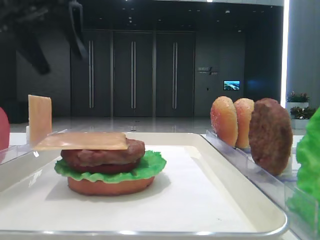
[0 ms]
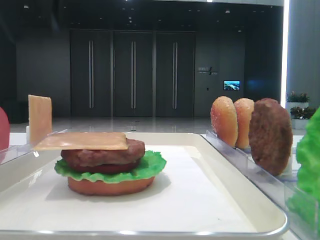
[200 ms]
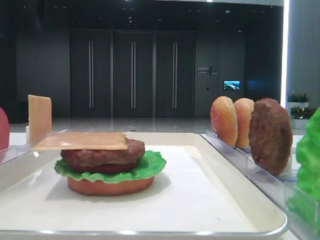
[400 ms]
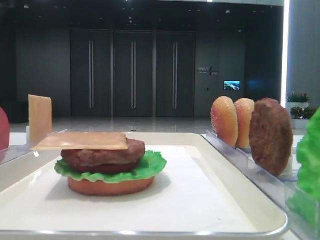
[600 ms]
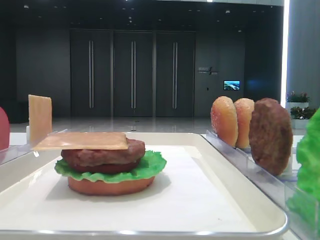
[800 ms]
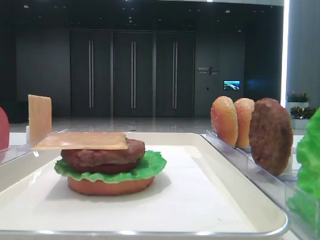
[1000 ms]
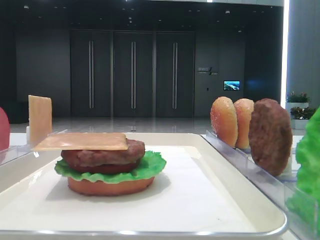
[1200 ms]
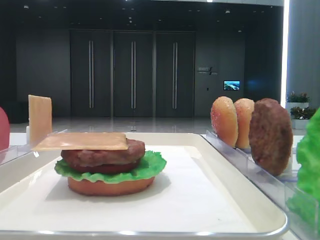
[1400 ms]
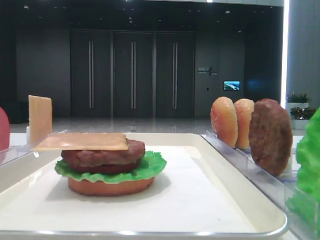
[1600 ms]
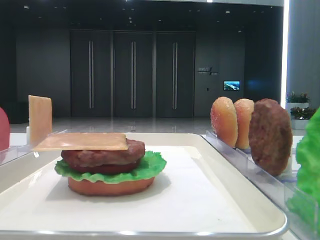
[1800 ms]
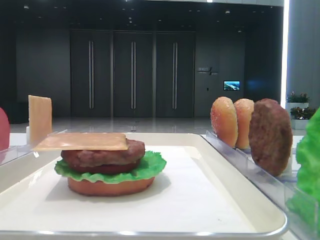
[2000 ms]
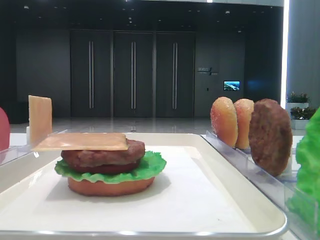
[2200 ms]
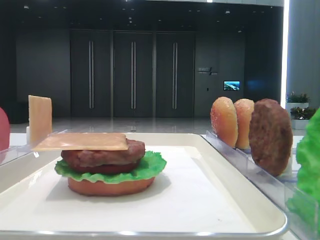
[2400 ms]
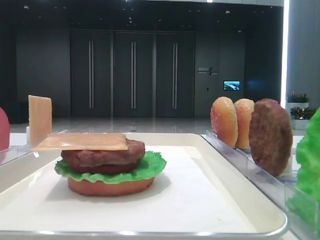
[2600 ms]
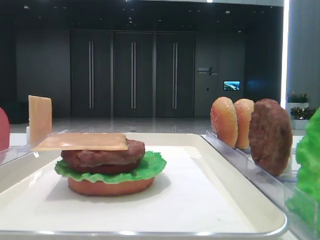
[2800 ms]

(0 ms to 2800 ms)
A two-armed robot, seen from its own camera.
0 ms - 1400 ms: The left gripper goes approximately 25 cm backward and to the left.

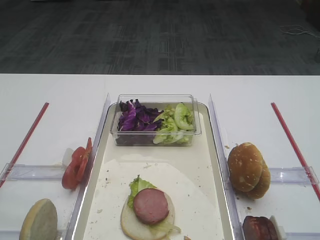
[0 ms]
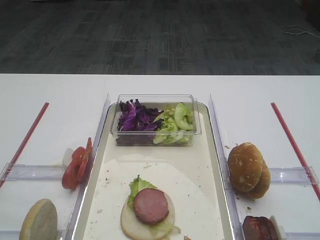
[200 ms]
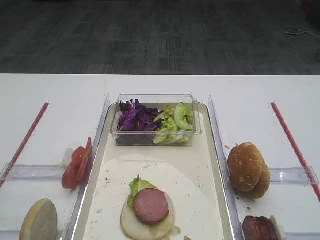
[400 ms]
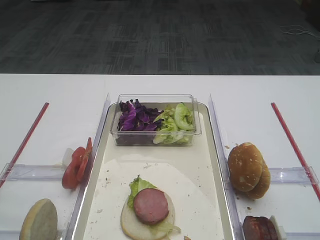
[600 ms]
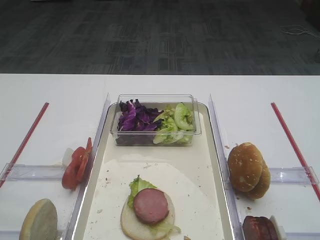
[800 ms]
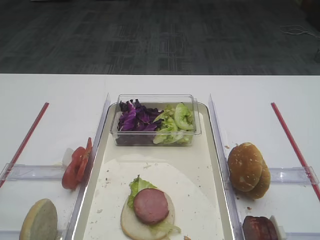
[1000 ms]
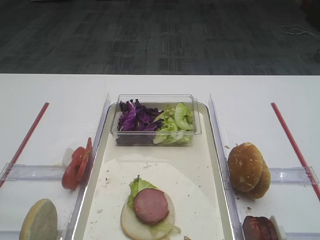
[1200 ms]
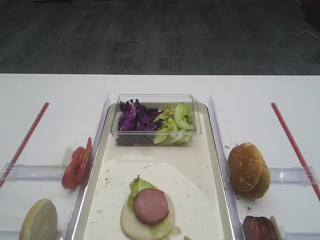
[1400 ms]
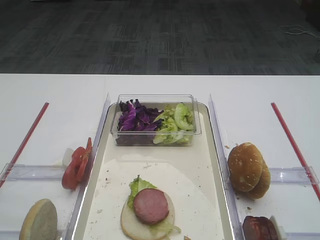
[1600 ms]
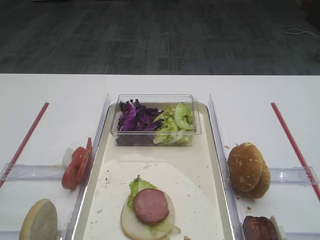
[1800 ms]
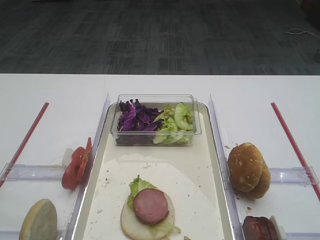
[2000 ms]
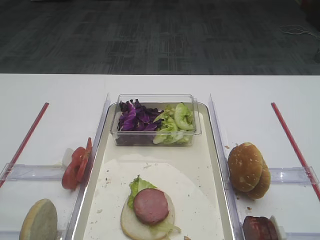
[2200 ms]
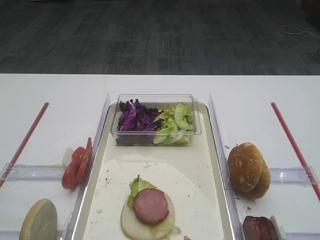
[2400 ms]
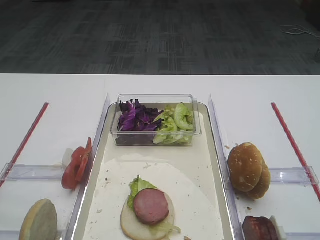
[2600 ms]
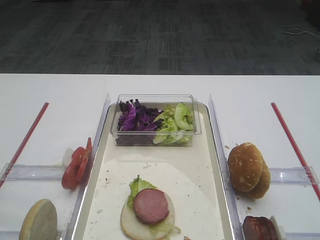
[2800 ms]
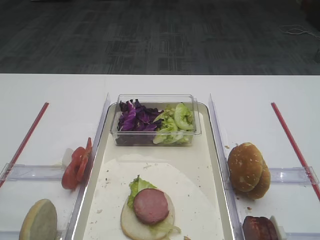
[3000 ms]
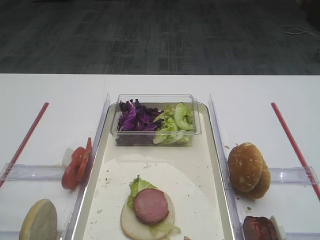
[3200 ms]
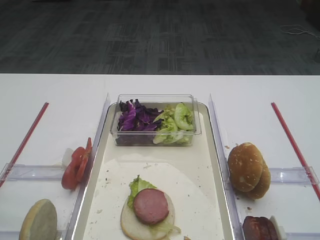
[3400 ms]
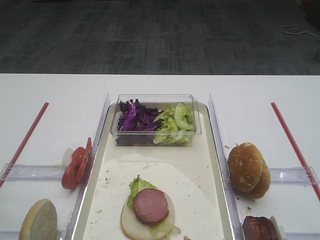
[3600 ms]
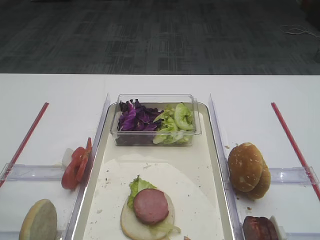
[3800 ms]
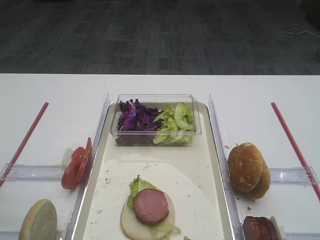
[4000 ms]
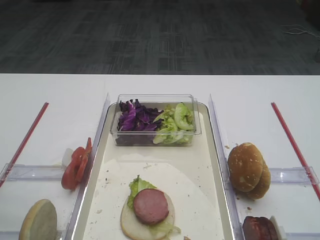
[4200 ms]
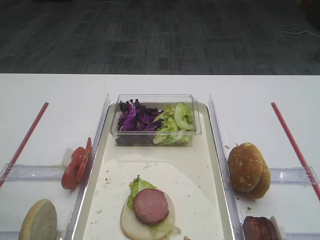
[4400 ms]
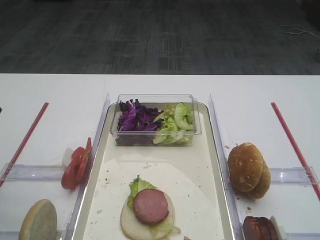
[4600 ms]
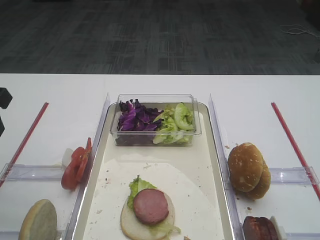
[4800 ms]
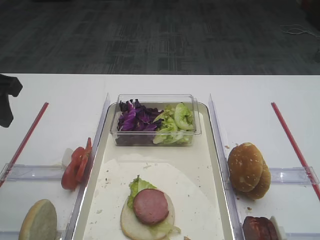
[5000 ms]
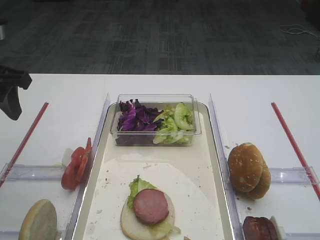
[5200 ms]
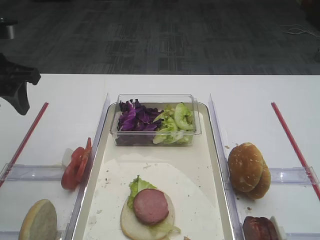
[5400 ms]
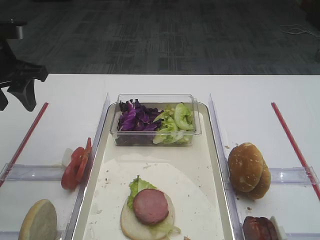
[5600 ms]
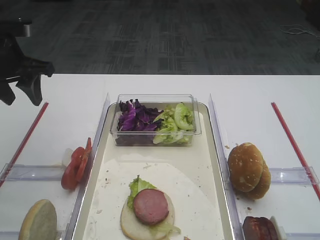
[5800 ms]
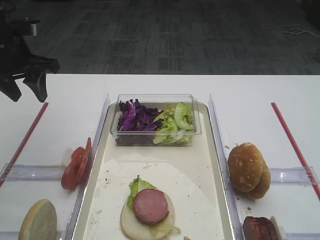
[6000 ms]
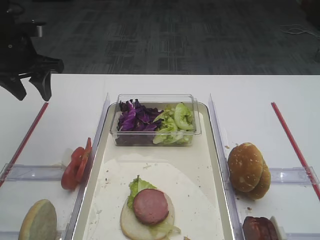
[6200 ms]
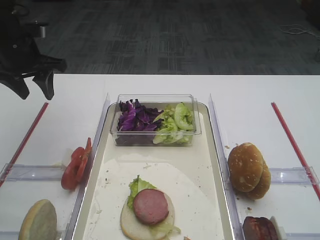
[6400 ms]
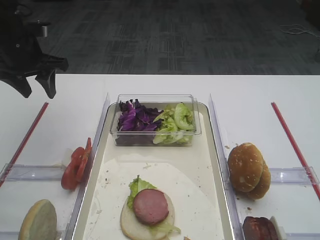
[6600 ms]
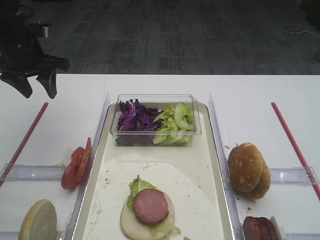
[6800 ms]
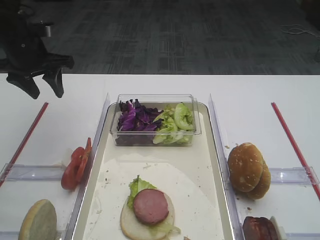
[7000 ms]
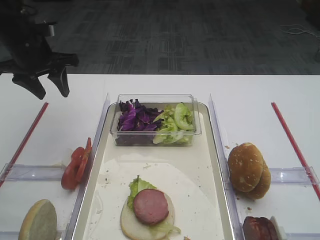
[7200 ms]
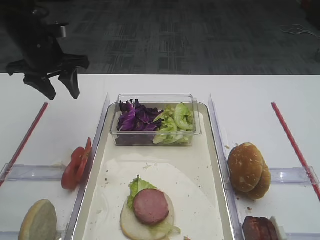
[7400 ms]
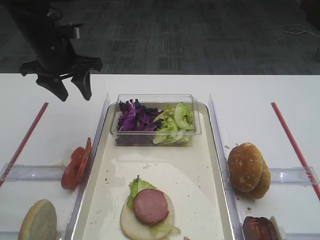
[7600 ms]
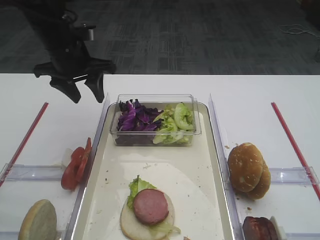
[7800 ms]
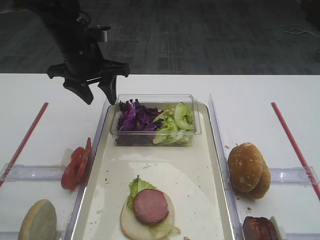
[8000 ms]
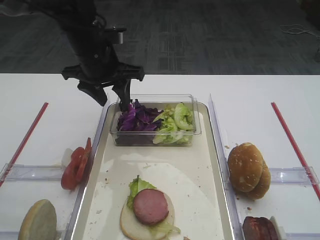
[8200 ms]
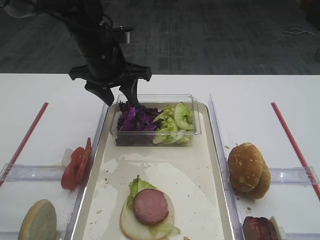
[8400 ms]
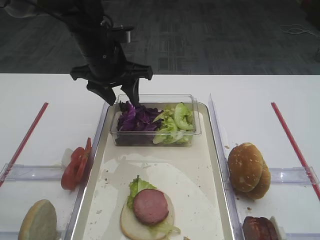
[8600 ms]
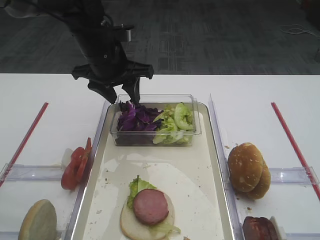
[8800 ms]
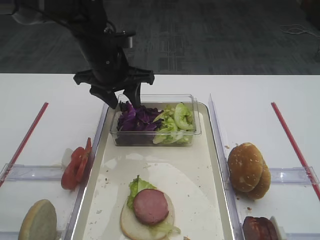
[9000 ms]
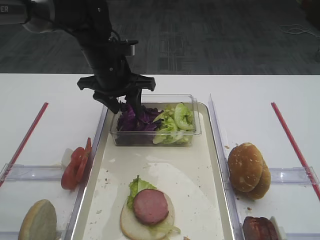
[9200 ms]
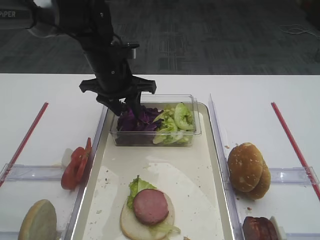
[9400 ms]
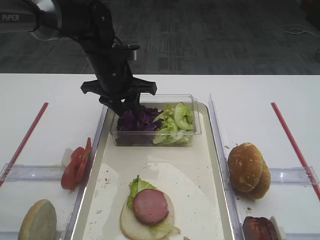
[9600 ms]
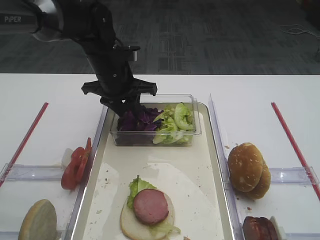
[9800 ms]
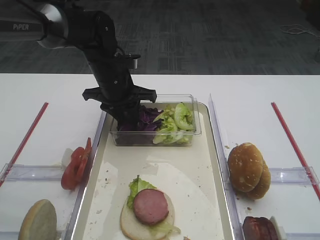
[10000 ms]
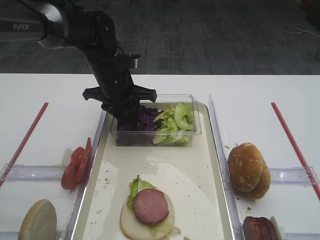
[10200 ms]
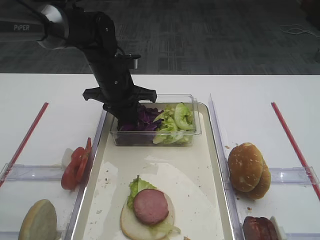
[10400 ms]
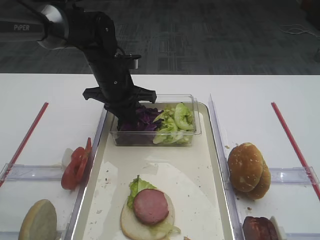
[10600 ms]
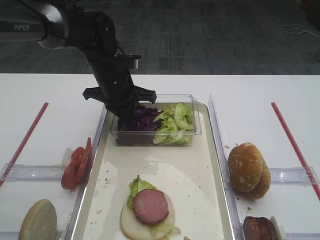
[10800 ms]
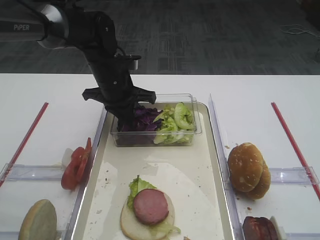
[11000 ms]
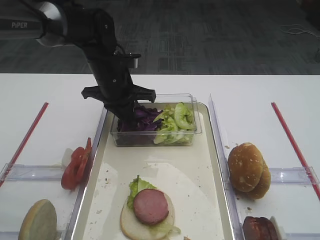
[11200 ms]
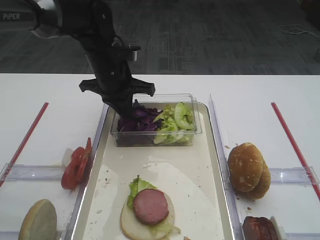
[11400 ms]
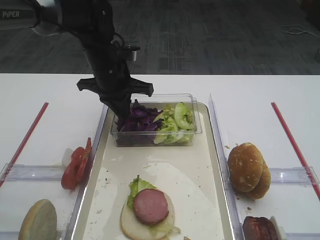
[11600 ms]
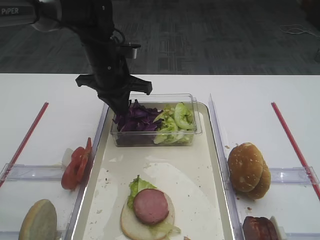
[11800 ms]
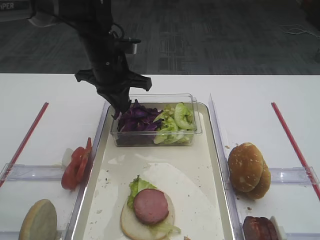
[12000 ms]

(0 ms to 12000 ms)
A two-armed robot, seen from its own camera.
4400 ms - 6000 ms: The left gripper travels forward by approximately 20 cm.
6000 ms - 7600 ms: The left gripper shifts roughly 5 cm to the right.
7600 ms - 9000 ms: The left gripper goes approximately 10 cm to the right.
9000 ms - 10400 ms: The left gripper shifts by about 5 cm, and closes its fingers.
10400 ms - 12000 ms: The left gripper closes up.

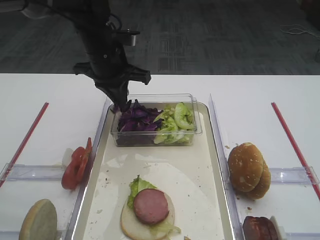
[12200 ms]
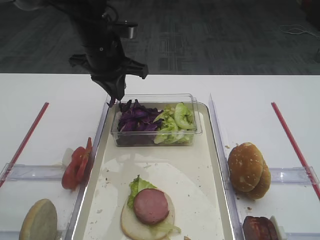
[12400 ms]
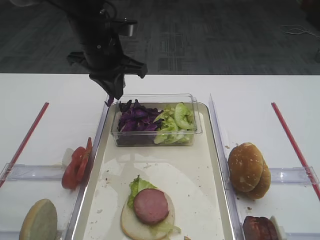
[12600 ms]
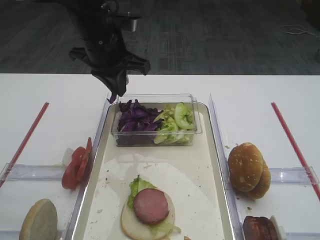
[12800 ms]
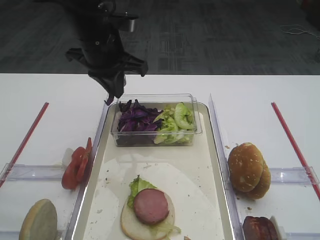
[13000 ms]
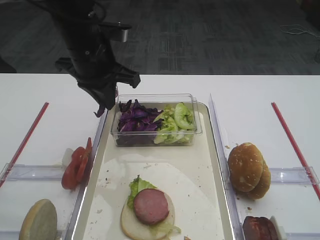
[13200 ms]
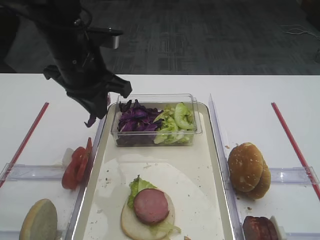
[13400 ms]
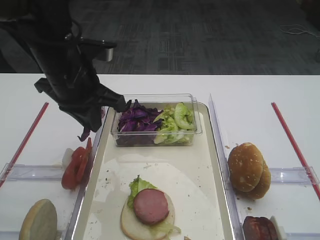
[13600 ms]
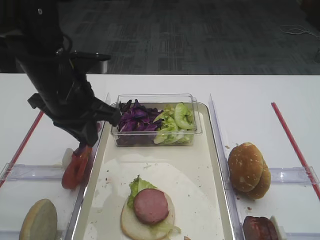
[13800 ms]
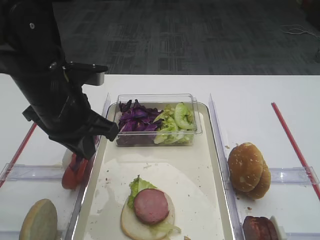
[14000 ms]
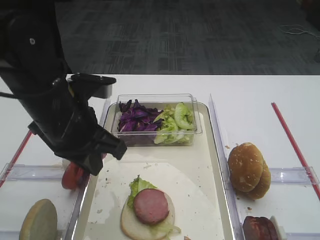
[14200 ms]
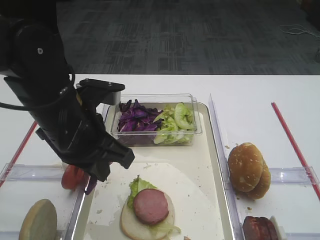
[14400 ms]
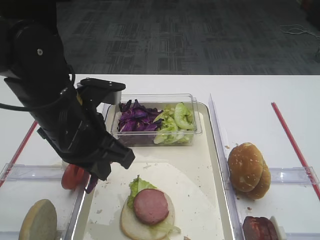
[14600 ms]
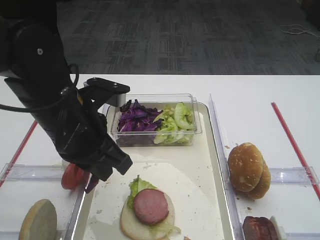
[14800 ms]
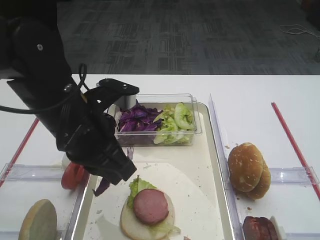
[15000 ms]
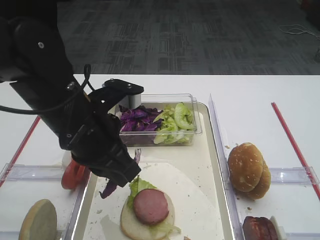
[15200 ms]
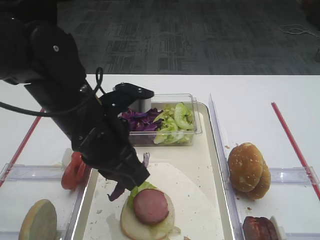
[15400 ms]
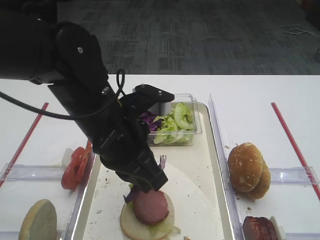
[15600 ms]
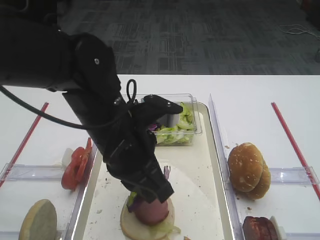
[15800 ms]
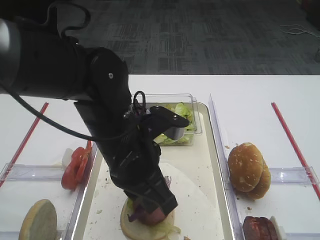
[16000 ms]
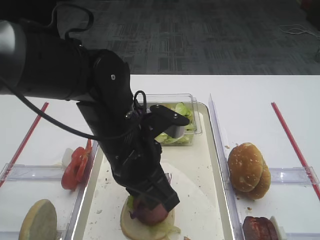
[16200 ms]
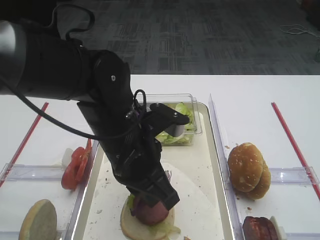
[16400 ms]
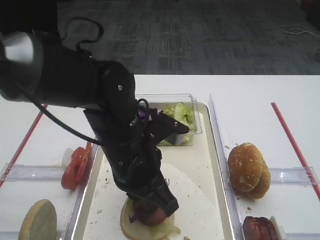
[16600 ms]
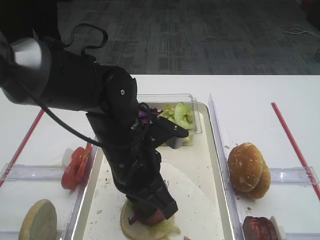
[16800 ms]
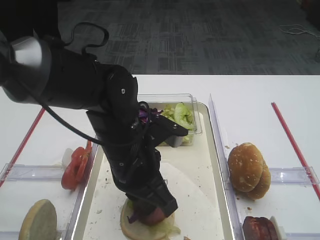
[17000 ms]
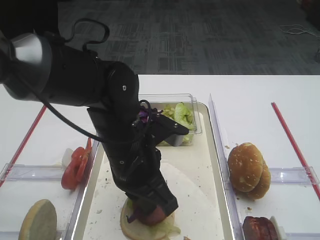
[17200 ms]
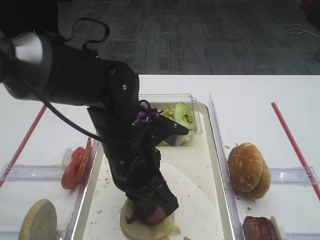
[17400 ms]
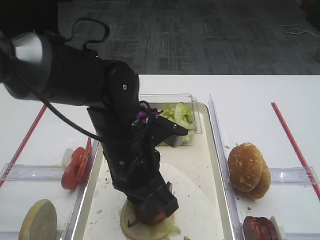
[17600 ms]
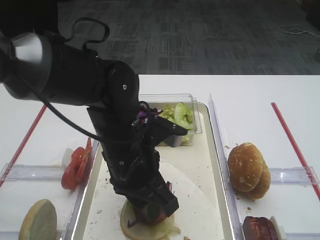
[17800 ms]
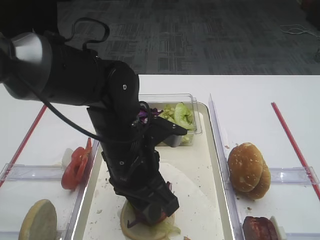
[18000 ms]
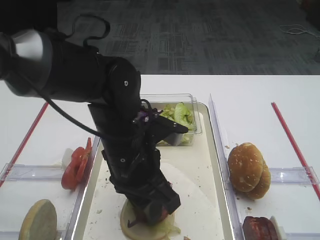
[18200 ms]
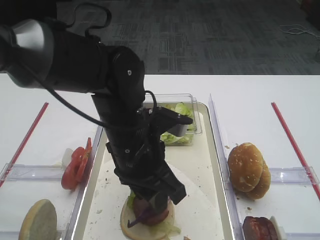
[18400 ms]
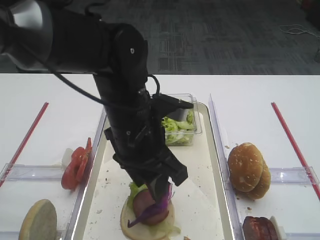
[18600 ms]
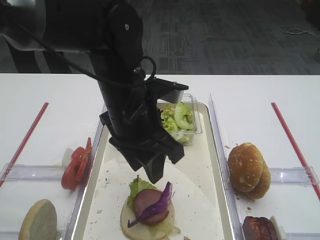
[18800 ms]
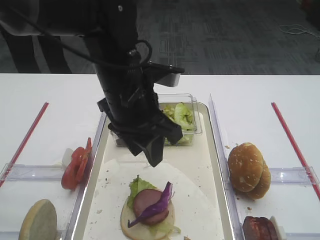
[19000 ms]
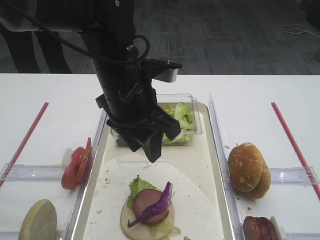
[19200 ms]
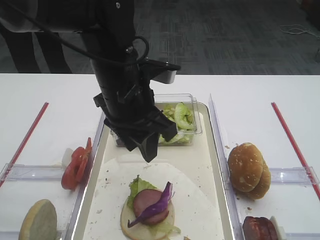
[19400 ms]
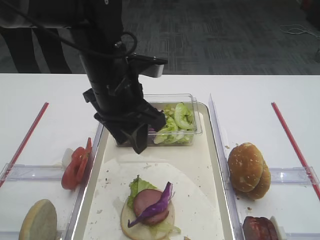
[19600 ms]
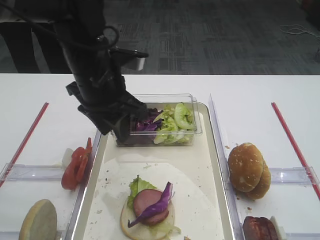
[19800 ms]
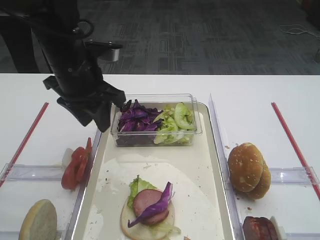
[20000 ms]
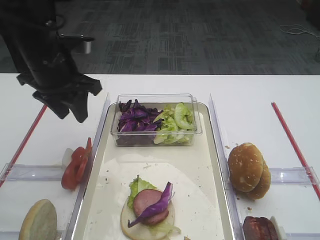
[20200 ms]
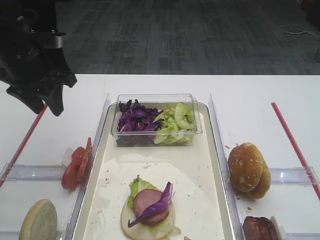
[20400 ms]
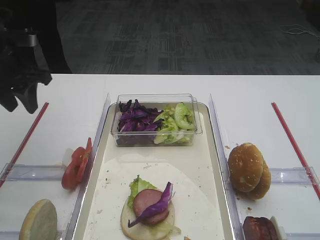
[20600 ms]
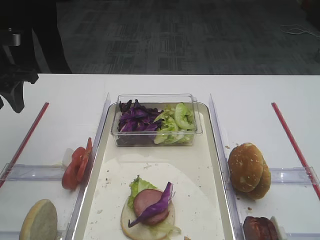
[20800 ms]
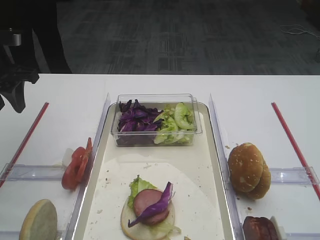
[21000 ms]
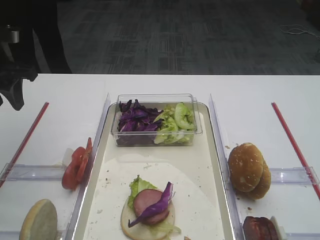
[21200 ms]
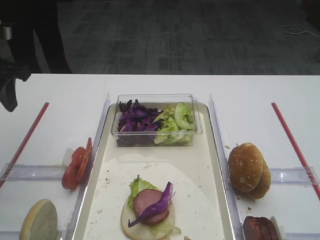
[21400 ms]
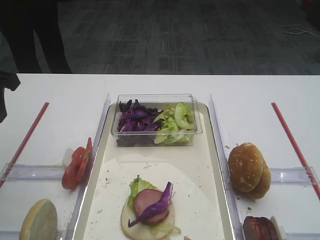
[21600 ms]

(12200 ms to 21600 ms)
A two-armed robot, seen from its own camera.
Step, 12600 ms - 19200 ms: Place the purple cabbage on the cutlet with the left gripper.
12200 ms - 13800 ms: The left gripper heads backward, covering roughly 10 cm.
13800 ms - 15400 ms: The left gripper goes roughly 10 cm backward and to the right.
15400 ms - 17000 ms: The left gripper changes place by roughly 5 cm.
17000 ms - 18400 ms: The left gripper opens its fingers.
18400 ms - 20000 ms: The left gripper moves to the left, forward and upward, approximately 15 cm.
20000 ms - 21600 ms: The left gripper travels to the left by about 15 cm.
